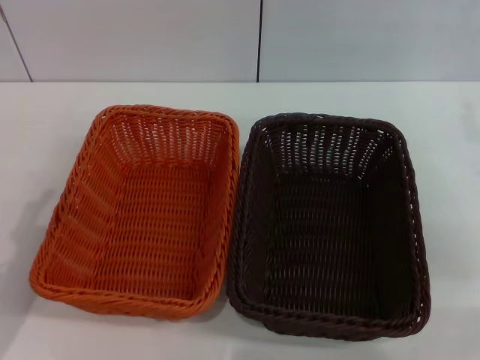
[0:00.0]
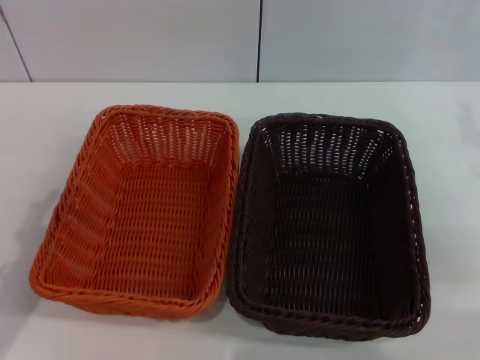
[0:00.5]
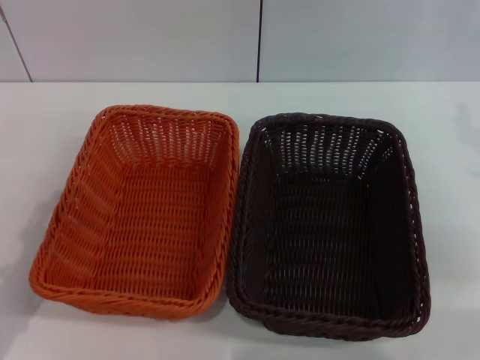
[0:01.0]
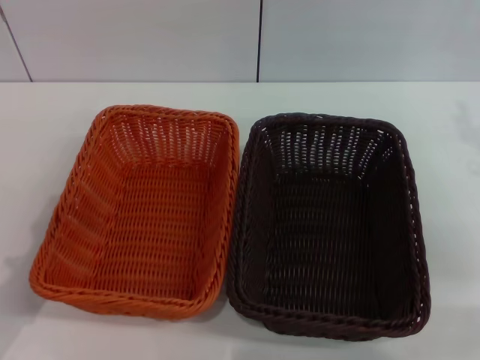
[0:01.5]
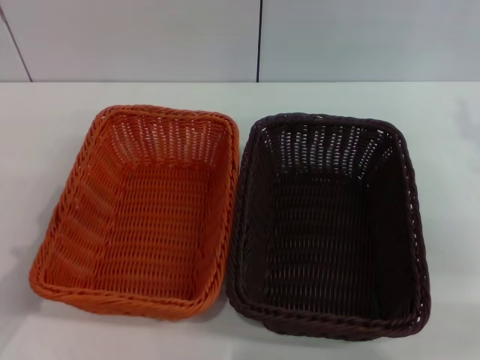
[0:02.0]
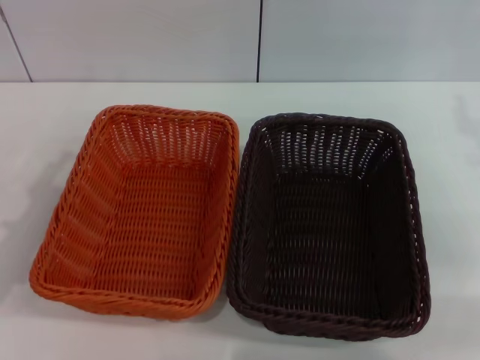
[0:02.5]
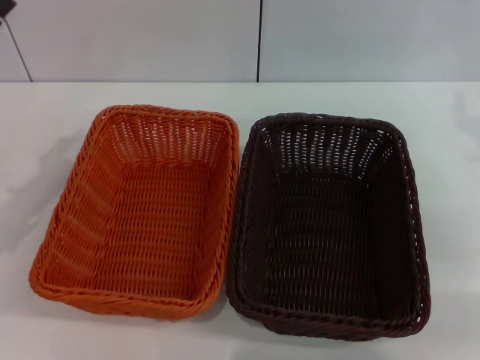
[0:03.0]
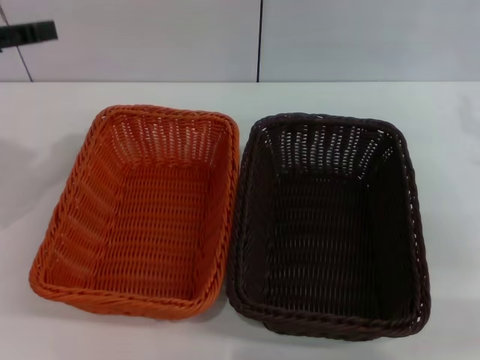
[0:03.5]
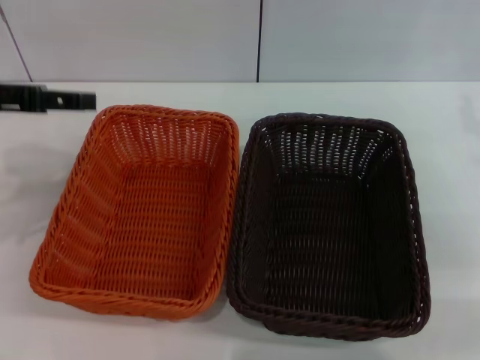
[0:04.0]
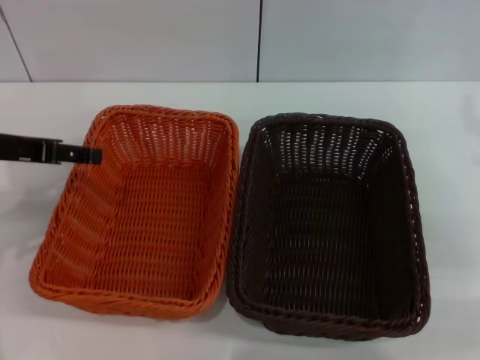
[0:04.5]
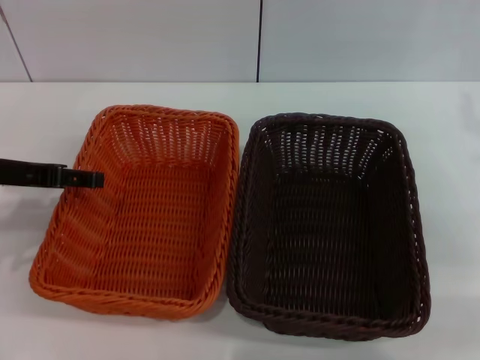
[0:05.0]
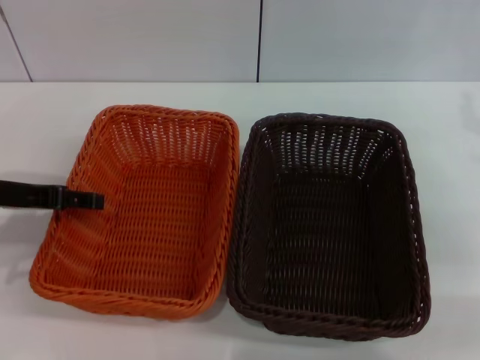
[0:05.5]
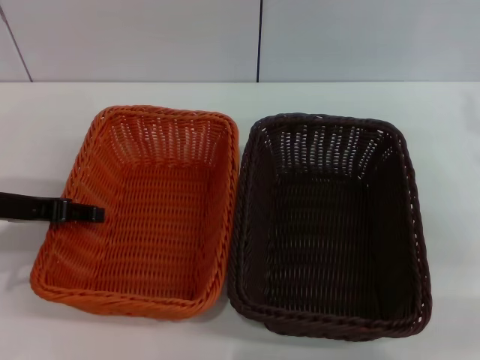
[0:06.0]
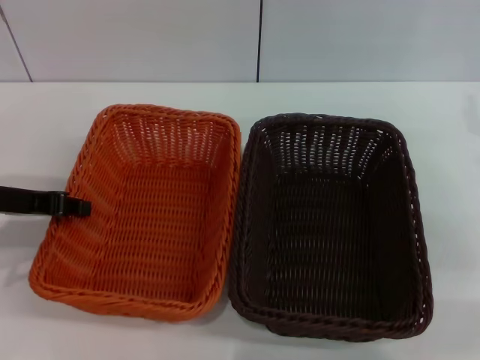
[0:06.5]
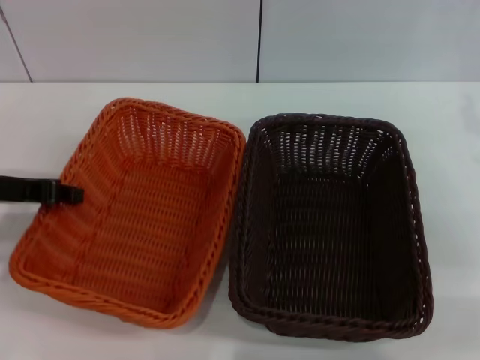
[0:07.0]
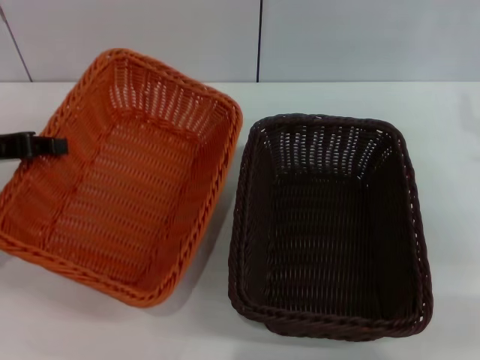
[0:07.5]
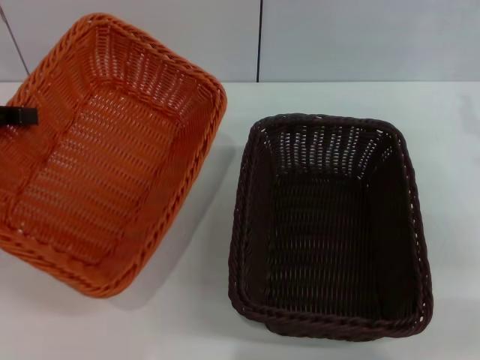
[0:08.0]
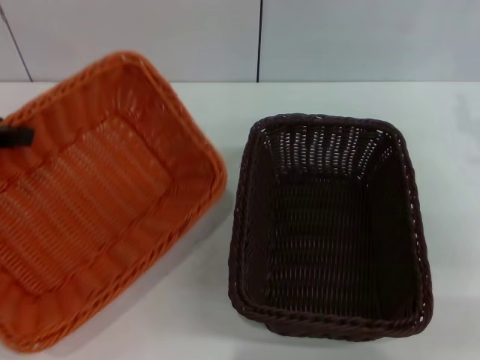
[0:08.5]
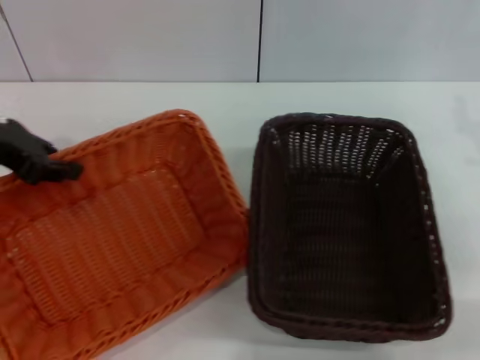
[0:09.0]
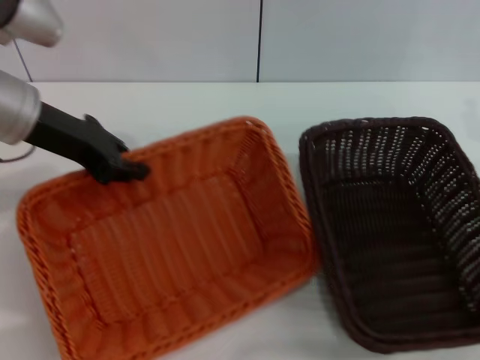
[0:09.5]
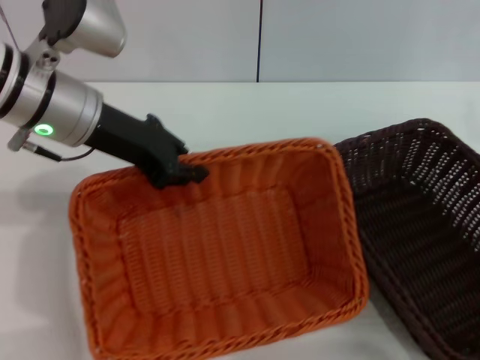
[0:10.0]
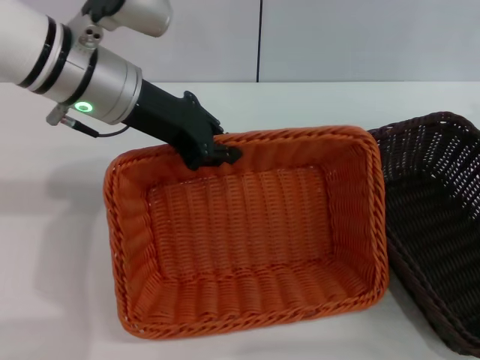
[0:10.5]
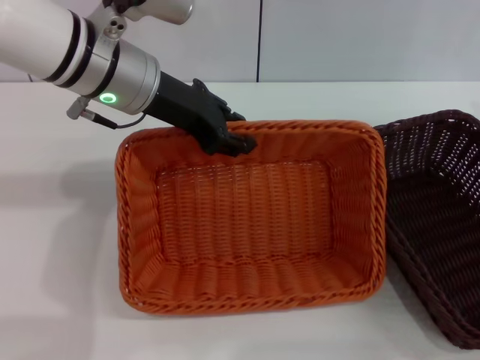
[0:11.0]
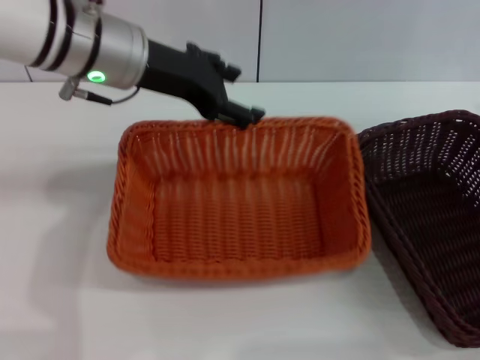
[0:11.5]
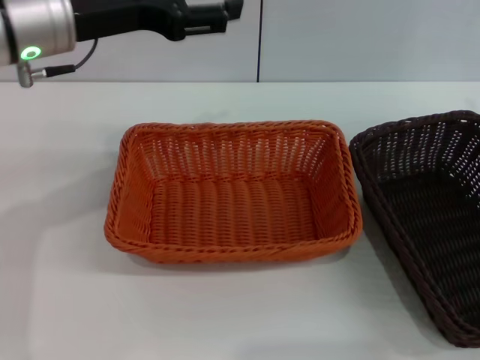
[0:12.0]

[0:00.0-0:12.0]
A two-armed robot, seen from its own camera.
Step, 0:00.0 to 0:06.5: Grasp the light basket with left gripper.
Step, 0:07.0 to 0:11.5: Place the light basket in the center of the table with left gripper.
0:02.0 to 0:04.0: The left gripper heads upward and forward, covering some 20 cm.
0:04.0 to 0:06.0: The left gripper is displaced downward by approximately 10 cm.
0:06.0 to 0:08.0: The left gripper goes some 10 cm upward and to the left, and closes.
0:08.0 to 0:10.0: The left gripper shifts roughly 15 cm to the right.
0:10.0 to 0:12.0: The left gripper opens its fingers.

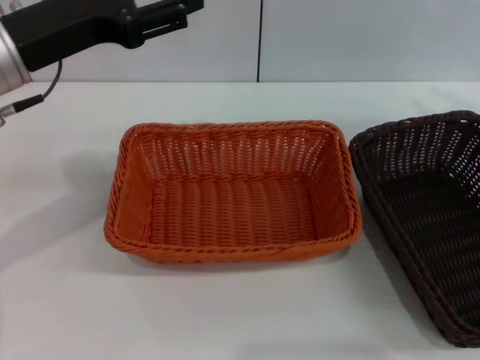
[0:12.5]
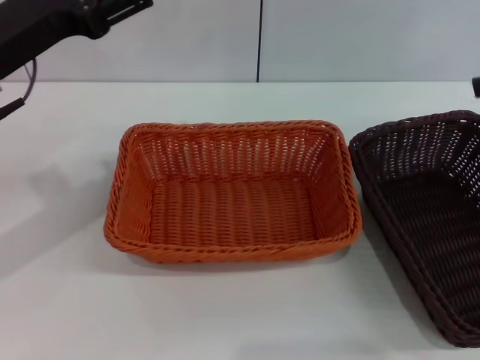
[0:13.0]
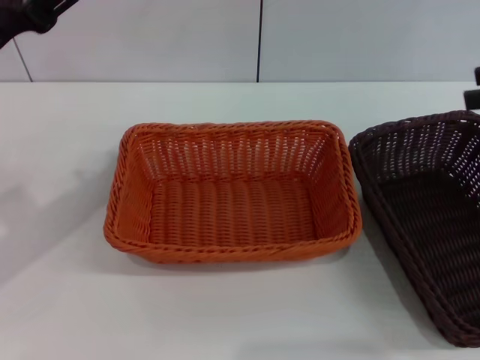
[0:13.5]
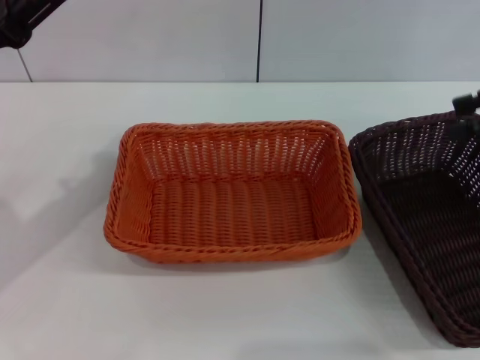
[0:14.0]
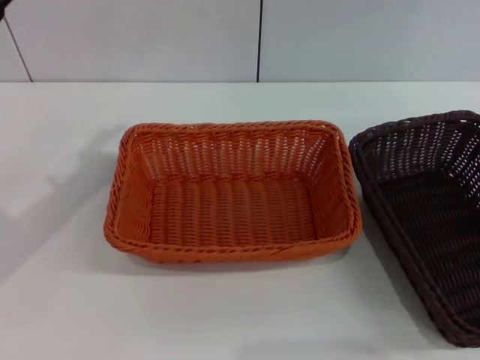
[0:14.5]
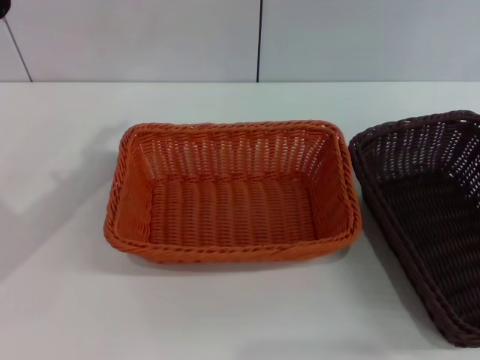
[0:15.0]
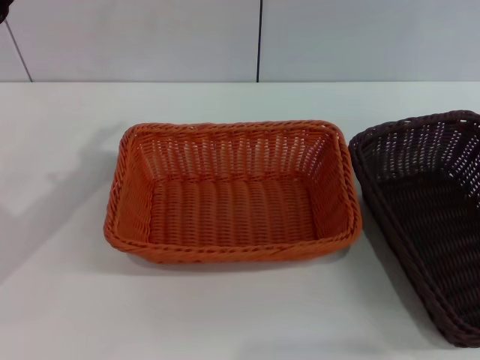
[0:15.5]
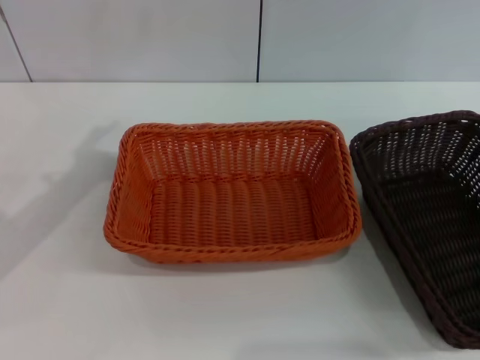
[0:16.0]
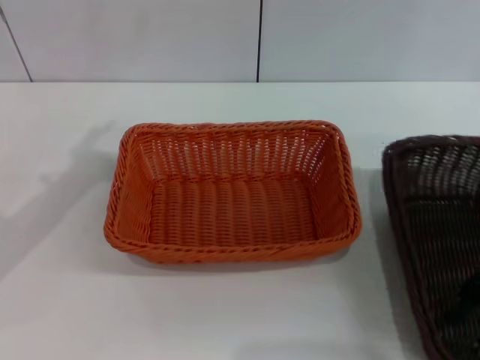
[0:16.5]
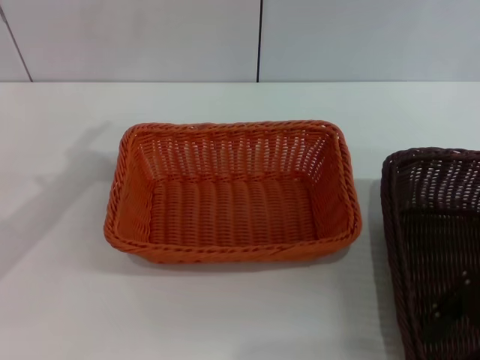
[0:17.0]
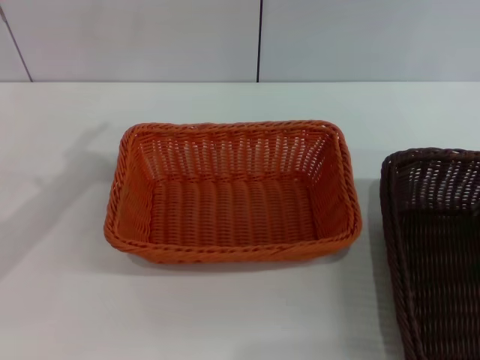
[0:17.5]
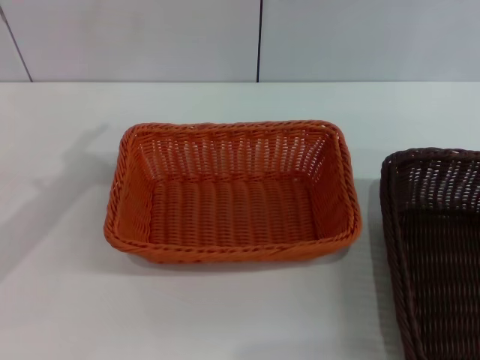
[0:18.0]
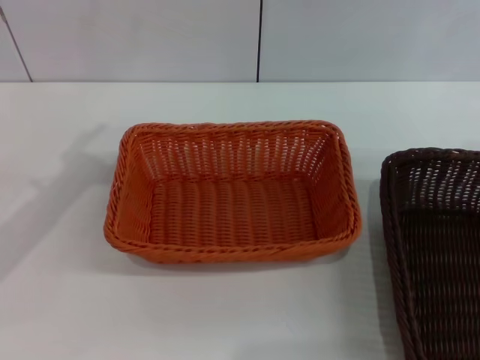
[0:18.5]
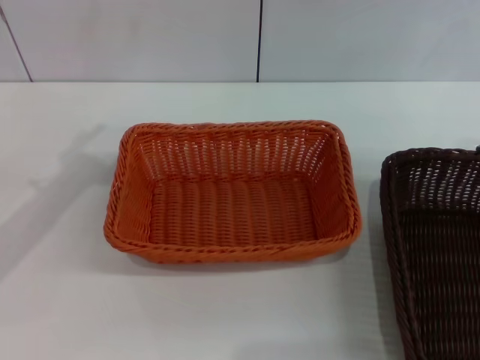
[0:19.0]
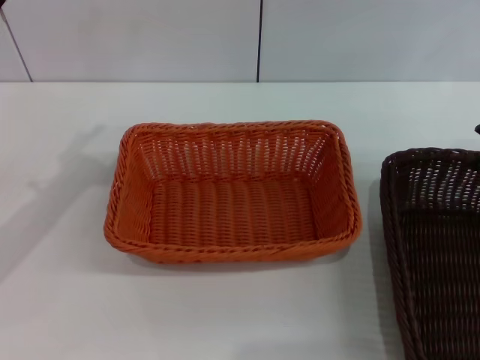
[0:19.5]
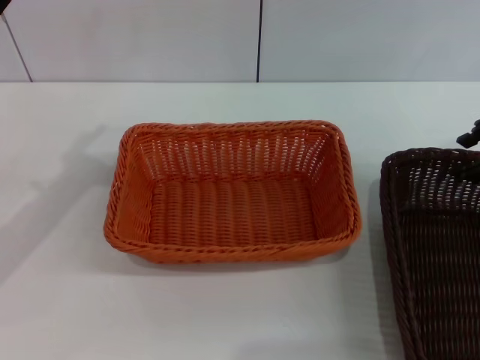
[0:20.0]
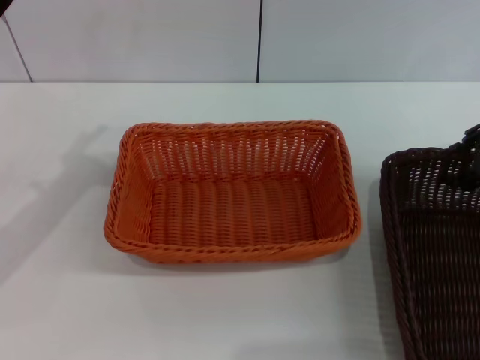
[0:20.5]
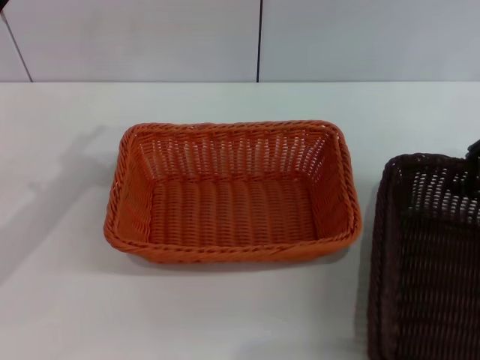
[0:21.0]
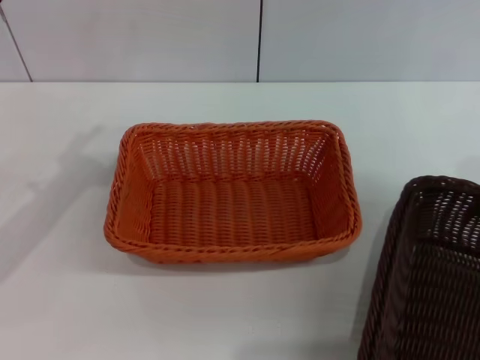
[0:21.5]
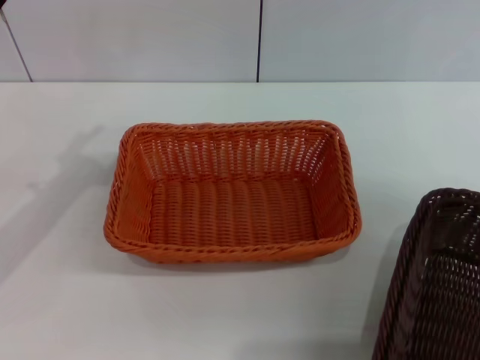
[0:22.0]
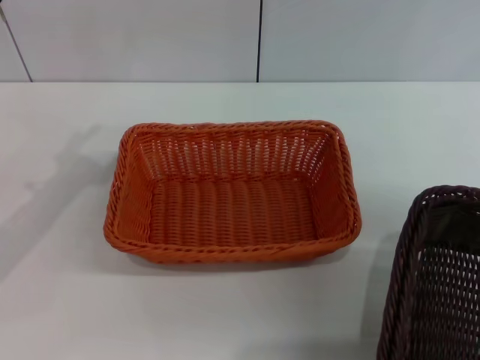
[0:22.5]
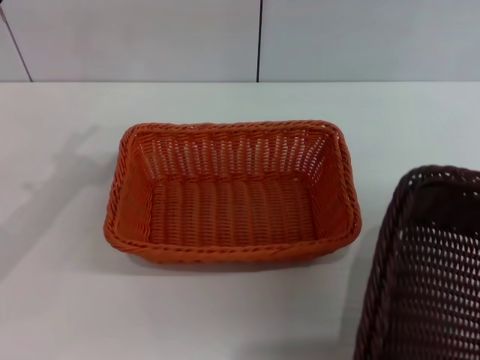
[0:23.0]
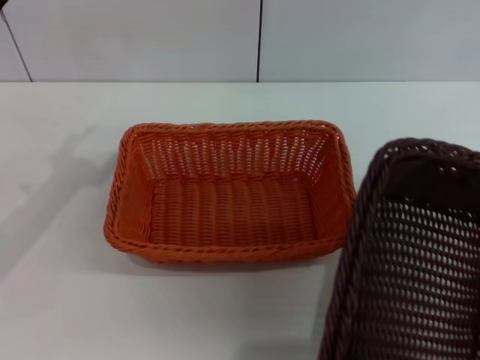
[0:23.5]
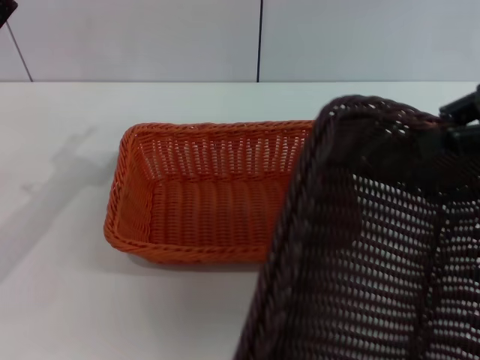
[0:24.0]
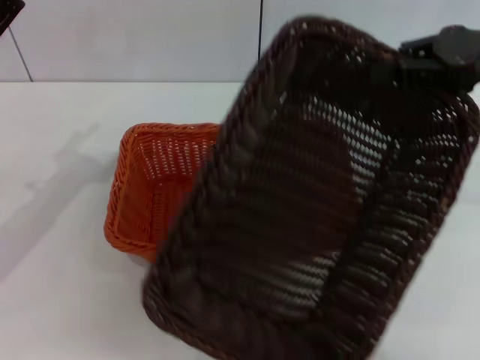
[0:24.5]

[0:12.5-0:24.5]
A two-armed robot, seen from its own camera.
Step, 0:12.5 to 0:21.0: Grasp the dark basket with right gripper.
0:12.5 to 0:14.5: The left gripper heads to the left, covering roughly 5 cm. The right gripper heads backward, covering some 10 cm.
0:14.5 to 0:16.5: The right gripper is displaced to the left and downward by about 10 cm.
0:16.5 to 0:18.5: The right gripper shifts some 10 cm upward and forward.
0:20.5 to 0:22.5: The right gripper shifts roughly 10 cm backward and to the right, and closes up.
0:22.5 to 0:24.5: The right gripper heads to the left, covering some 10 cm.

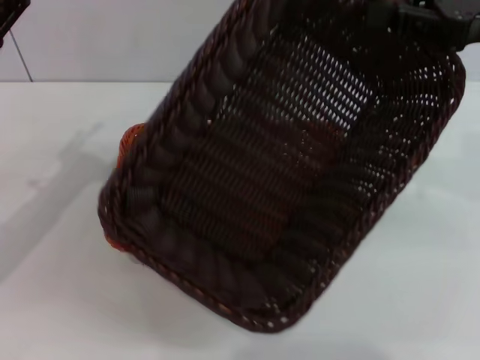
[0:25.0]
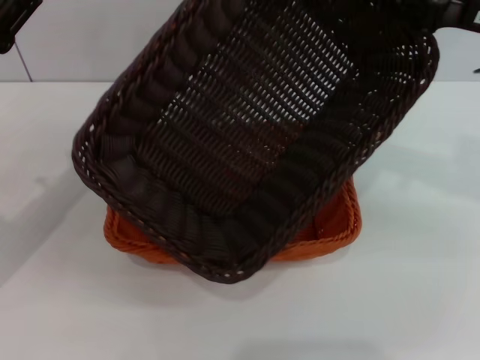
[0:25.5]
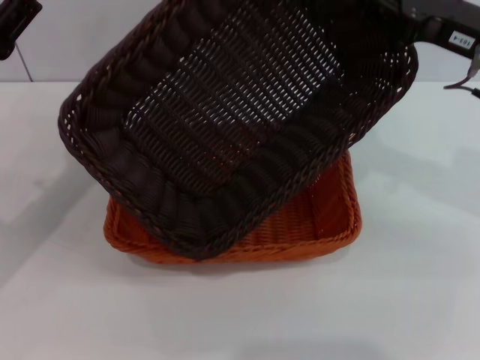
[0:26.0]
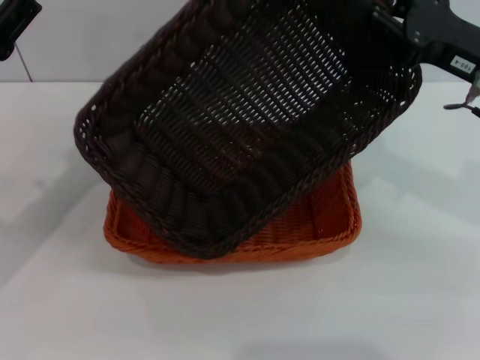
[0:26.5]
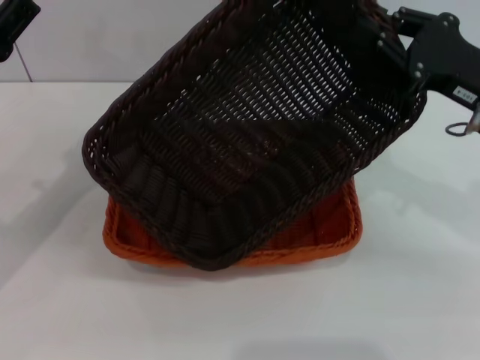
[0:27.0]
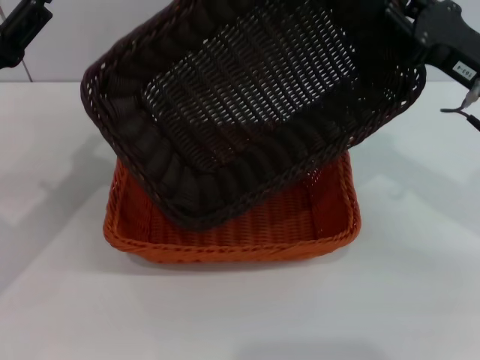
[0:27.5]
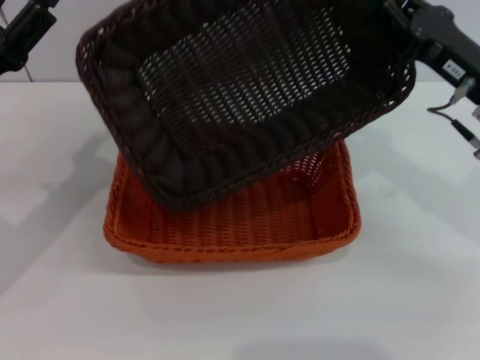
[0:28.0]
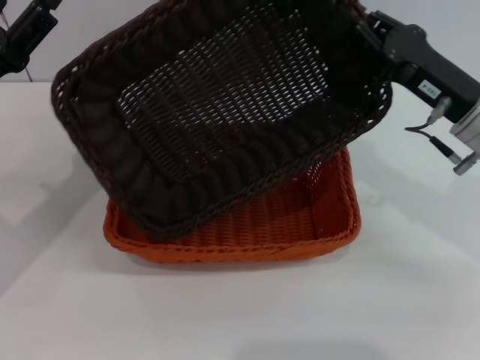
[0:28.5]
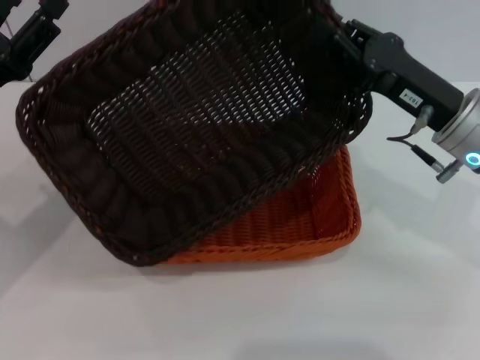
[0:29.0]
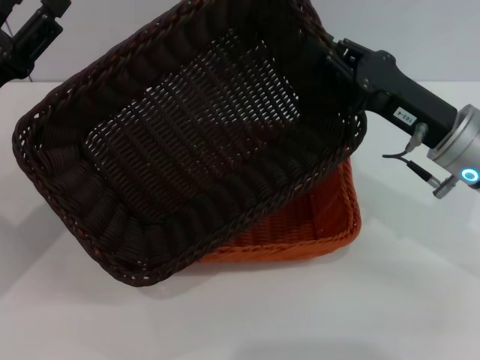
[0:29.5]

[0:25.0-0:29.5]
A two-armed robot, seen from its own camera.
0:25.0 to 0:27.0: The right gripper heads downward, covering some 10 cm.
0:27.0 to 0:29.5: The right gripper shifts by about 5 cm.
